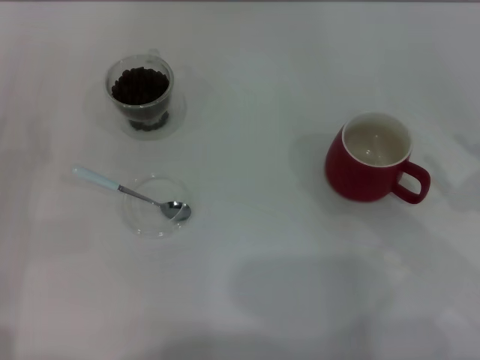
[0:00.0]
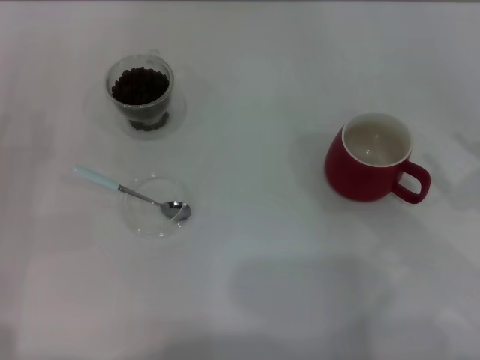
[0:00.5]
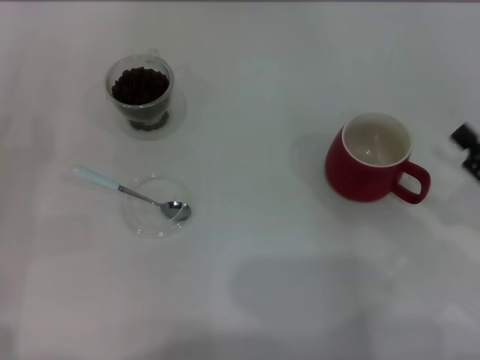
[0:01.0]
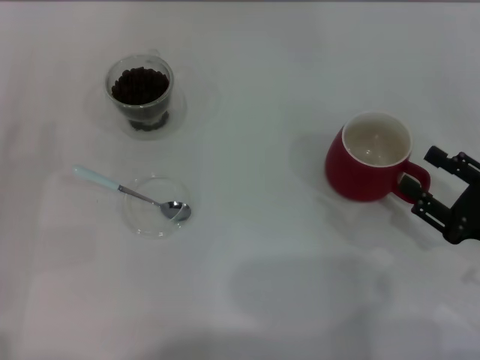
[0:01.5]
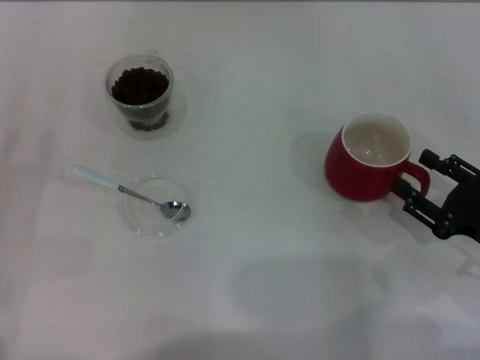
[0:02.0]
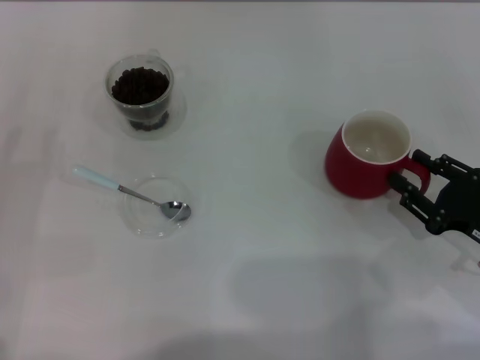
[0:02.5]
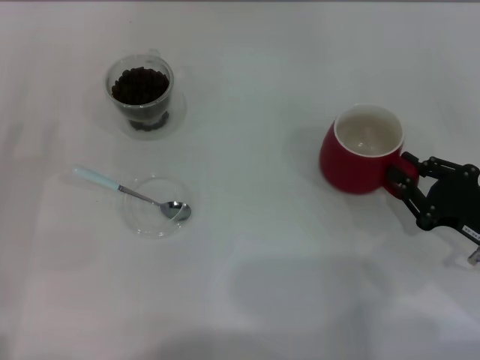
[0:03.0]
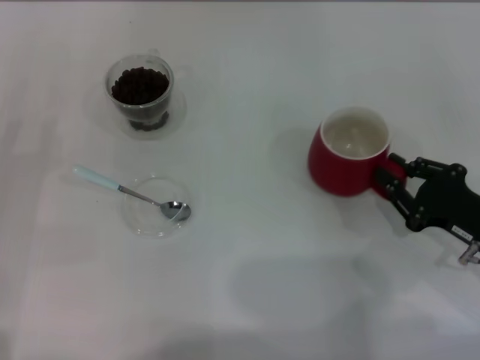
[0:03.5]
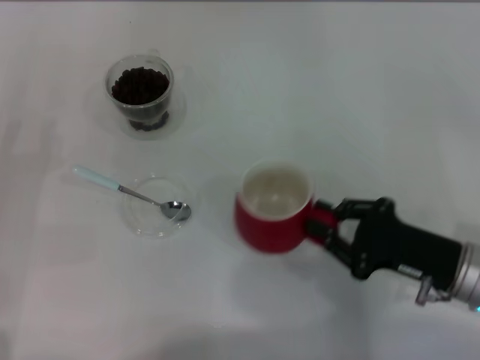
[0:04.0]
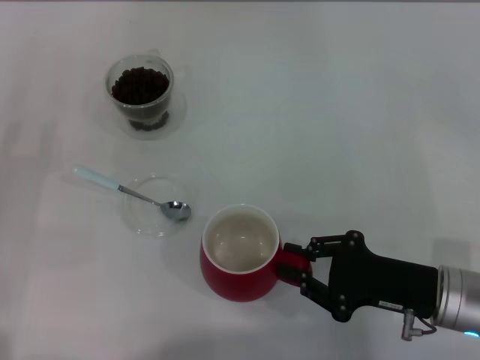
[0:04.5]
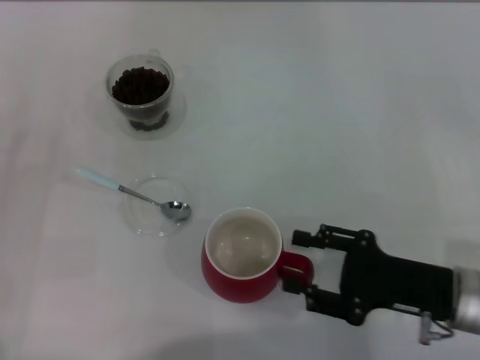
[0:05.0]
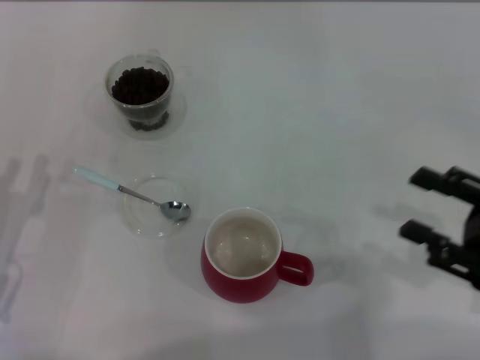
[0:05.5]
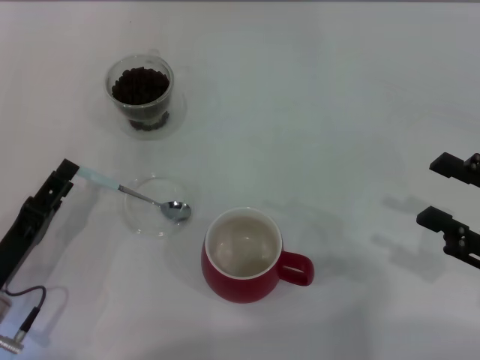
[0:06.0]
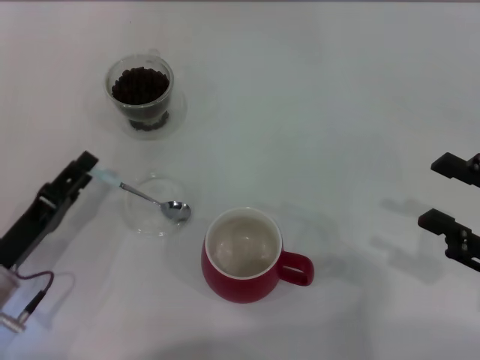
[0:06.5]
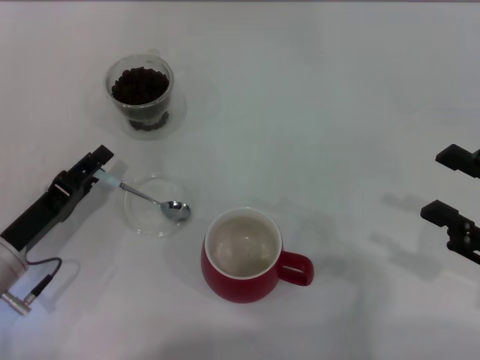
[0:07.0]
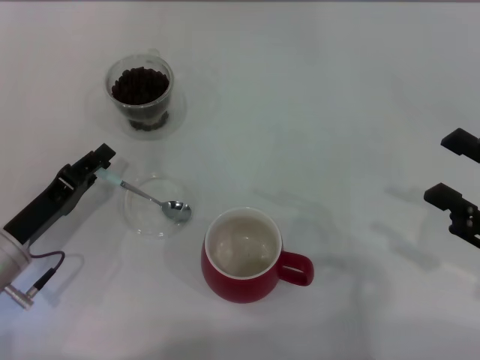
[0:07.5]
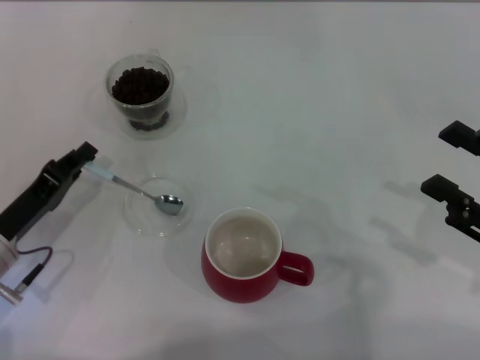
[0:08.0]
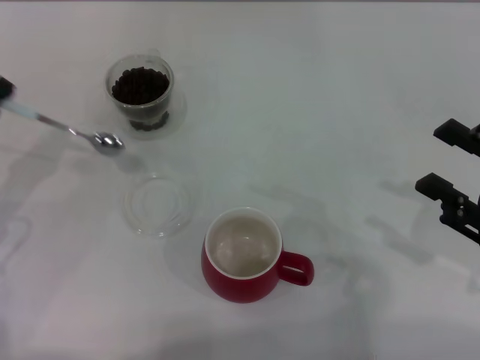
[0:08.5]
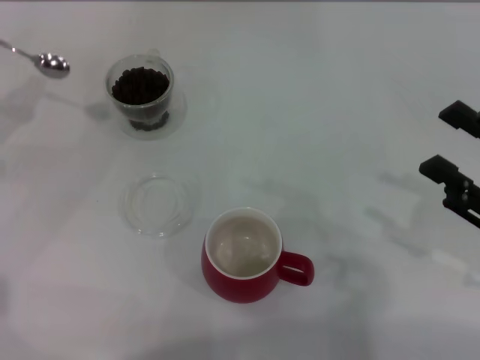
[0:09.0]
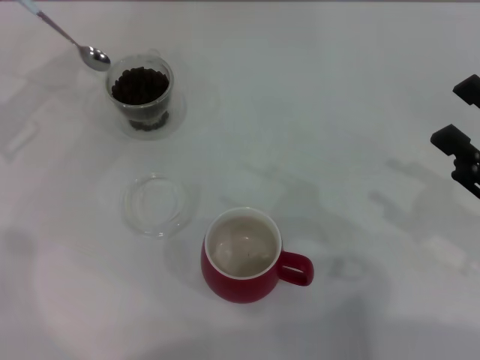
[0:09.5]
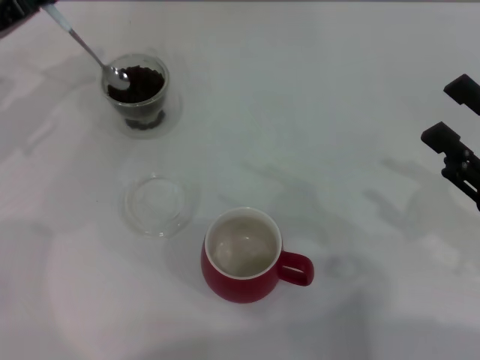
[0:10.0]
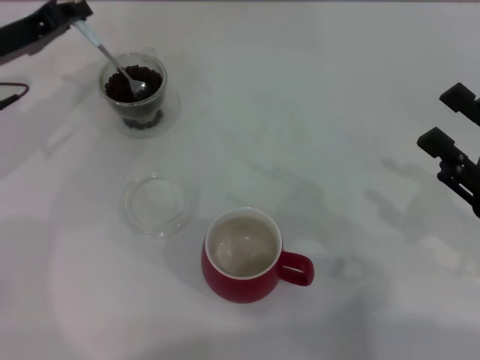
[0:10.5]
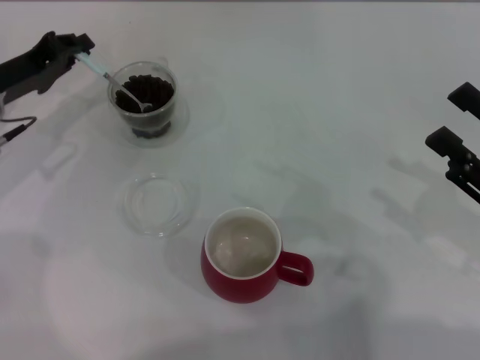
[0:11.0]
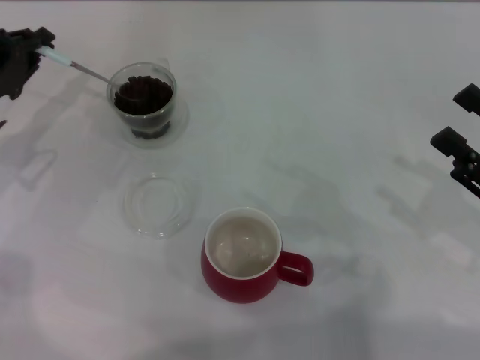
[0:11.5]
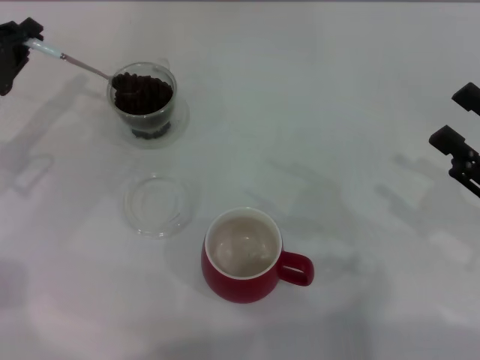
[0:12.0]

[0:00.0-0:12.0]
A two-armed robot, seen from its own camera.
Task of the whole recording: Use a blue spoon to take out the coffee beans from the glass and pour them into the red cup.
Step, 0:00.0 to 0:05.0: Move the cup to the center of view with the left gripper.
Step, 0:05.5 to 0:08.0: Pick up the spoon with the right gripper.
0:00.0 to 0:02.0: The right gripper travels downward by about 5 cm.
0:02.0 to 0:04.0: The right gripper is displaced to the left by roughly 5 cm, and closes its fingers.
0:04.0 to 0:06.0: The left gripper goes some 10 cm to the right and backward; the right gripper moves to the right and upward, approximately 10 cm, and opens its fingers.
0:06.0 to 0:08.0: The left gripper moves forward, some 5 cm, and closes up.
0:08.0 to 0:10.0: The left gripper travels forward and upward by approximately 20 cm.
0:10.0 to 0:12.0: The left gripper heads backward, covering roughly 5 cm.

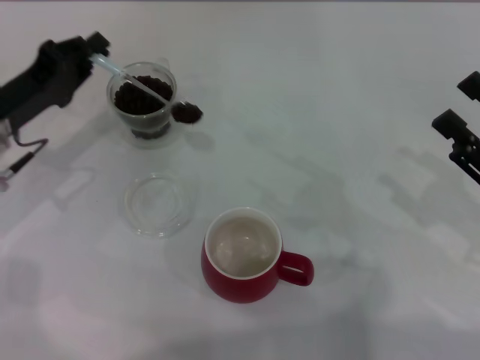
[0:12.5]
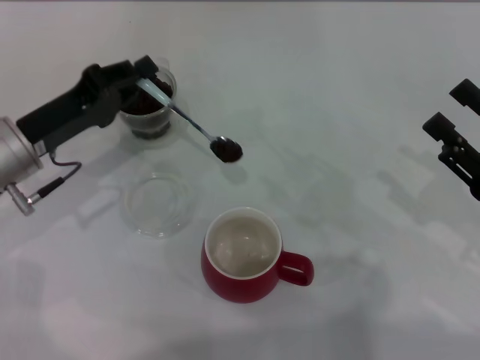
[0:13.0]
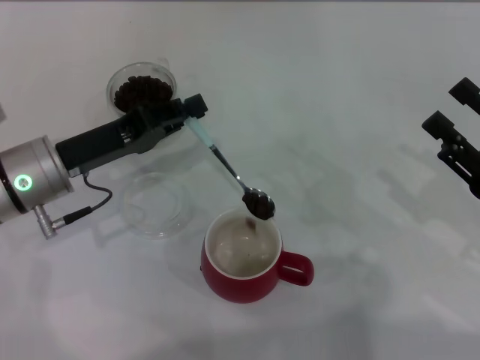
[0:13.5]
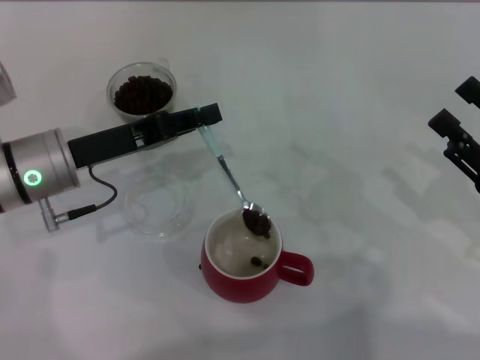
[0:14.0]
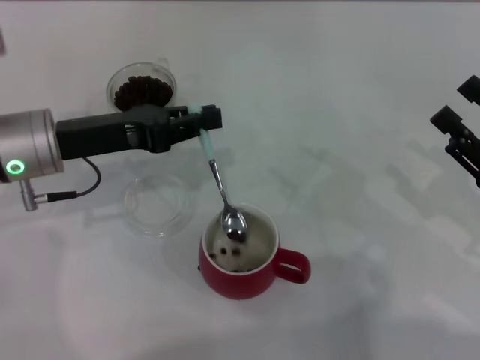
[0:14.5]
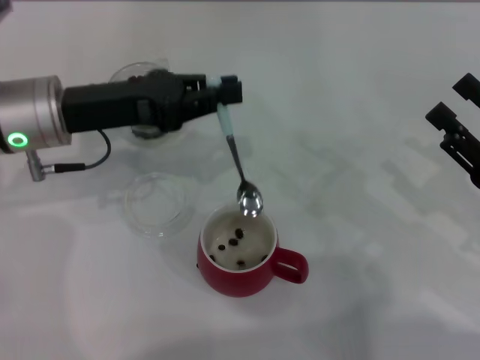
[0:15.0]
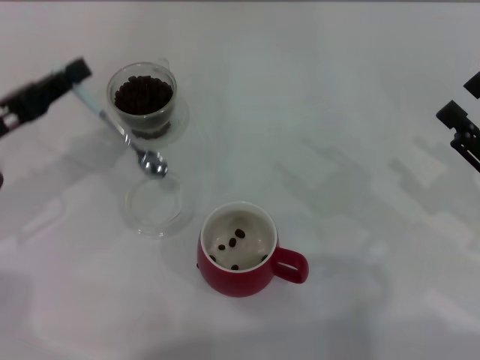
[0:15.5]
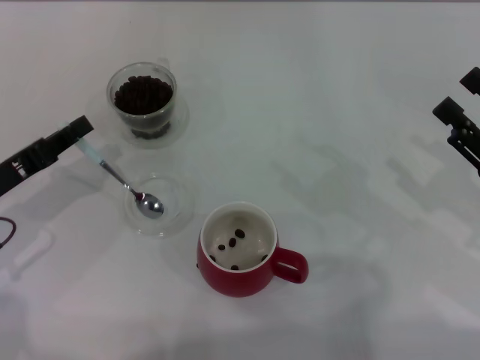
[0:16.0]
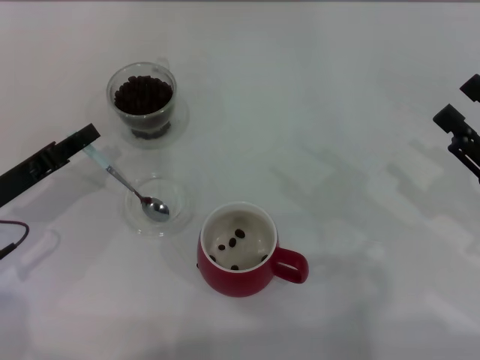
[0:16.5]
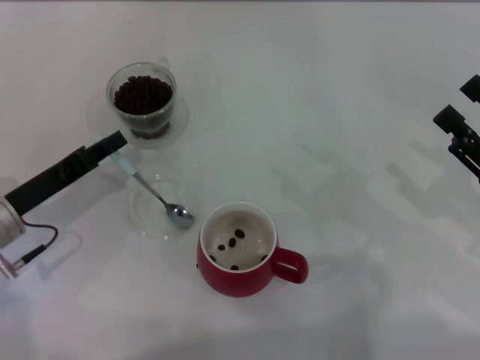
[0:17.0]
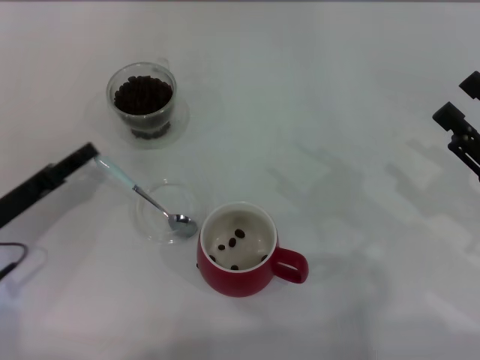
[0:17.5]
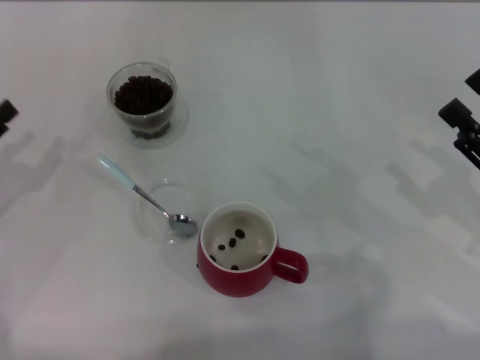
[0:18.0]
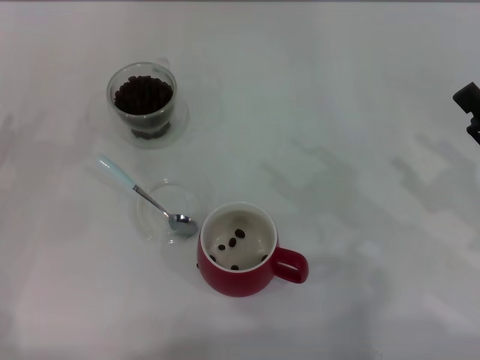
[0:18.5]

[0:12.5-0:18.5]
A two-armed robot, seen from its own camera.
Task of the whole recording: Use a blue spoon to take out the coffee beans from the glass and pour them into the red cup.
Step, 0:12.5 to 0:15.0: Scoop a spoonful of beans into the cup with the right gripper.
0:12.5 to 0:14.5: The left gripper travels to the right by some 5 cm.
0:14.5 to 0:16.5: The left gripper shifts roughly 10 cm to the left, downward and backward.
0:16.5 to 0:18.5: The left gripper travels to the left by approximately 10 cm, and opens its fingers.
